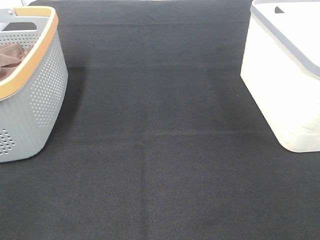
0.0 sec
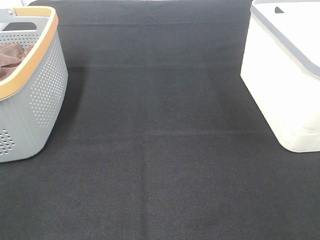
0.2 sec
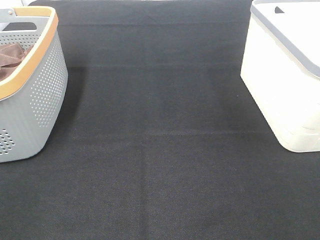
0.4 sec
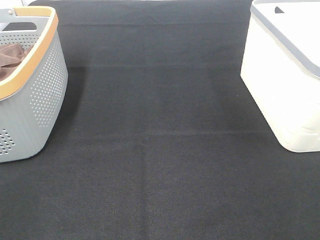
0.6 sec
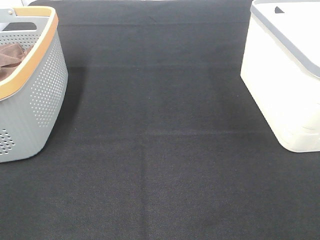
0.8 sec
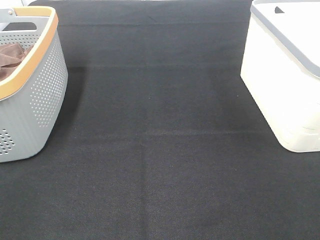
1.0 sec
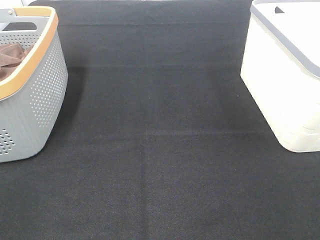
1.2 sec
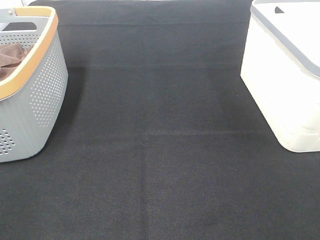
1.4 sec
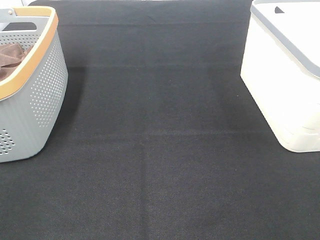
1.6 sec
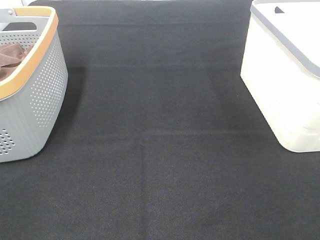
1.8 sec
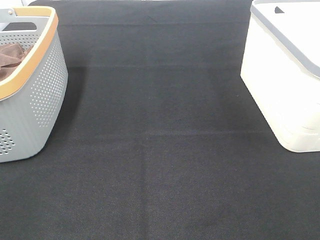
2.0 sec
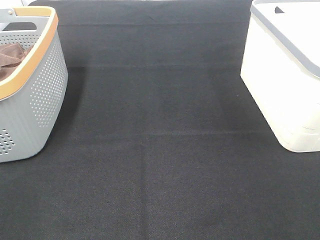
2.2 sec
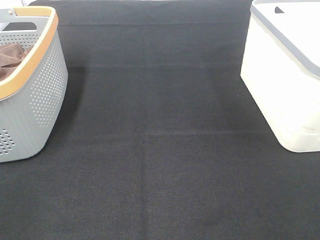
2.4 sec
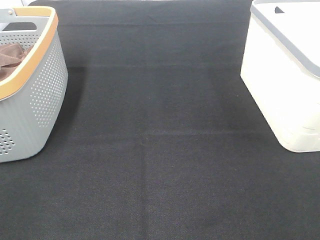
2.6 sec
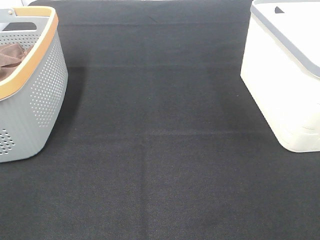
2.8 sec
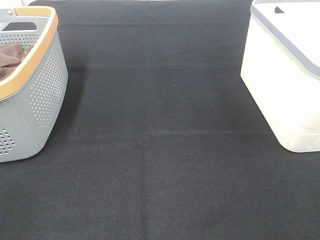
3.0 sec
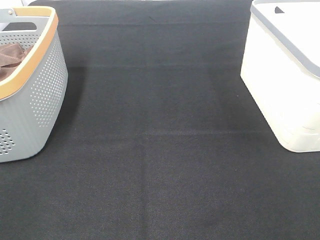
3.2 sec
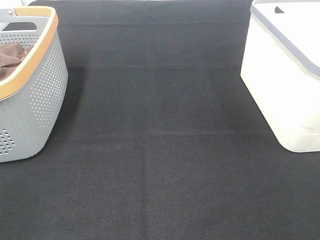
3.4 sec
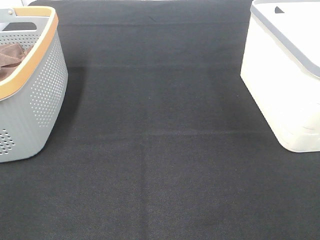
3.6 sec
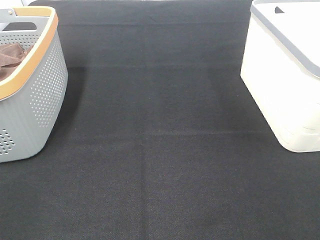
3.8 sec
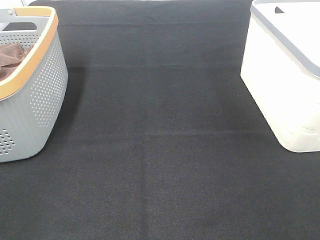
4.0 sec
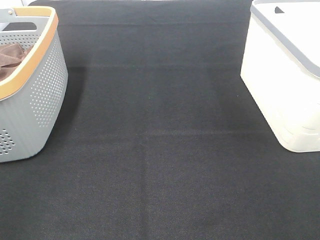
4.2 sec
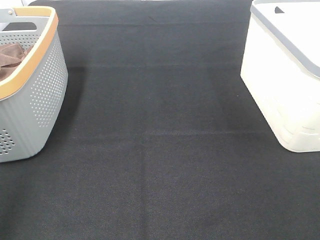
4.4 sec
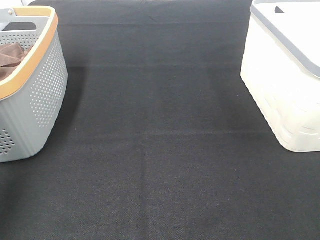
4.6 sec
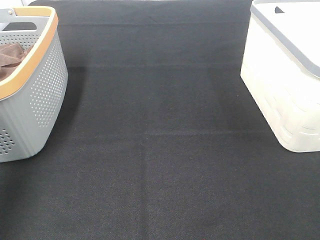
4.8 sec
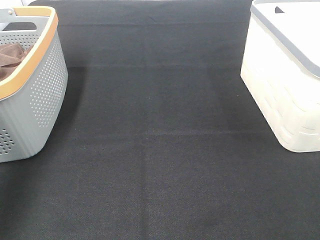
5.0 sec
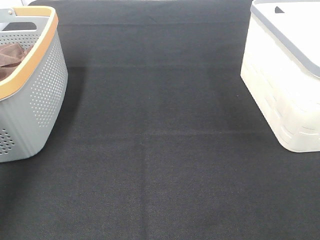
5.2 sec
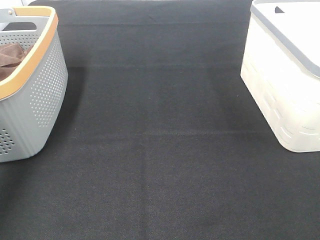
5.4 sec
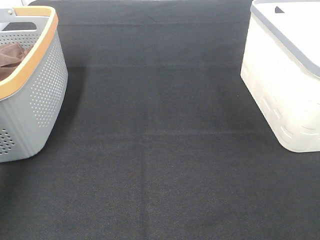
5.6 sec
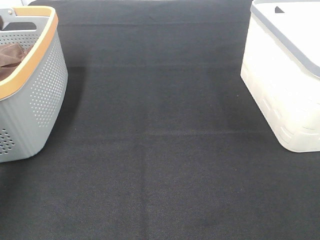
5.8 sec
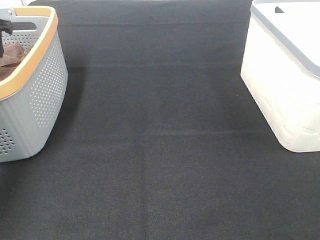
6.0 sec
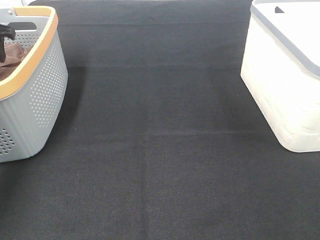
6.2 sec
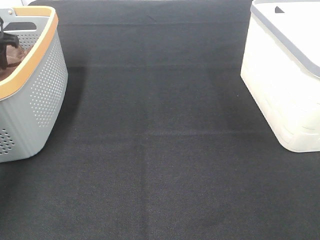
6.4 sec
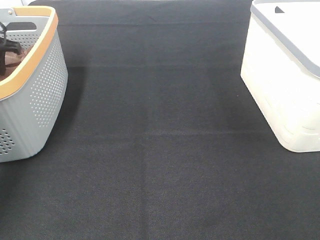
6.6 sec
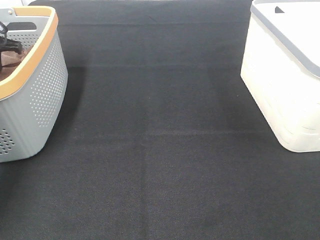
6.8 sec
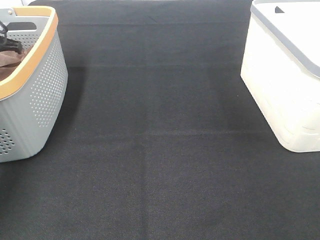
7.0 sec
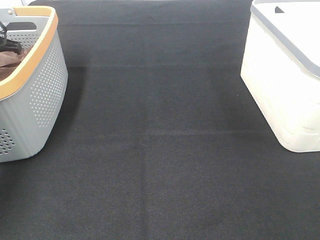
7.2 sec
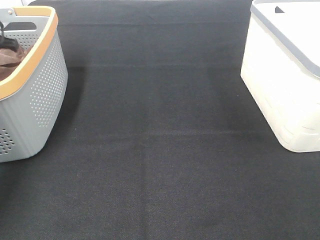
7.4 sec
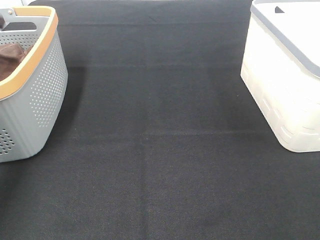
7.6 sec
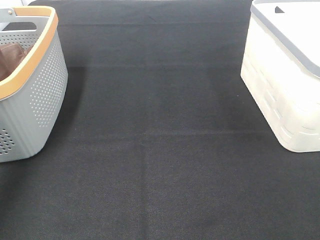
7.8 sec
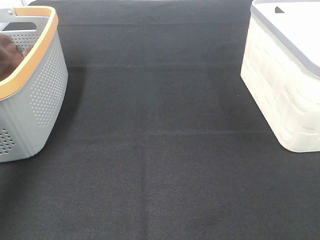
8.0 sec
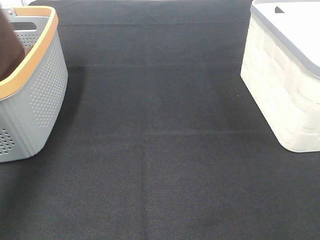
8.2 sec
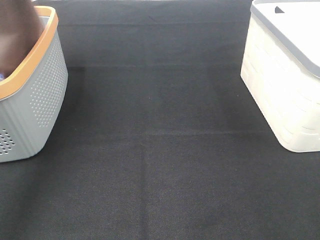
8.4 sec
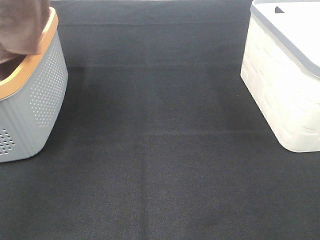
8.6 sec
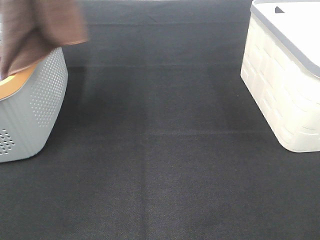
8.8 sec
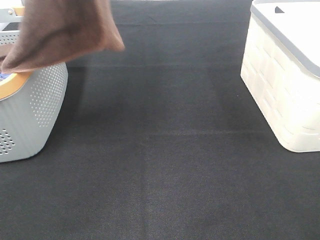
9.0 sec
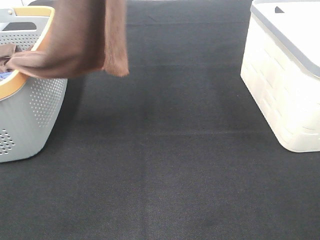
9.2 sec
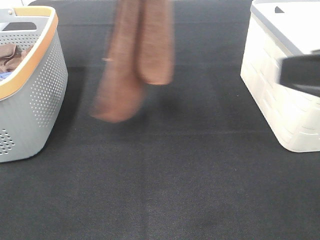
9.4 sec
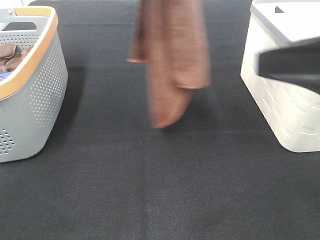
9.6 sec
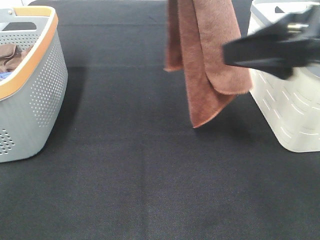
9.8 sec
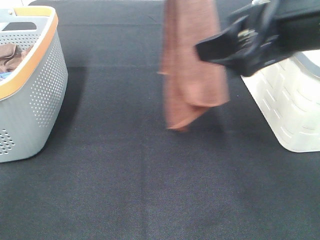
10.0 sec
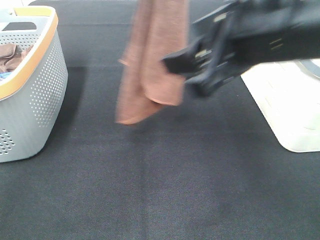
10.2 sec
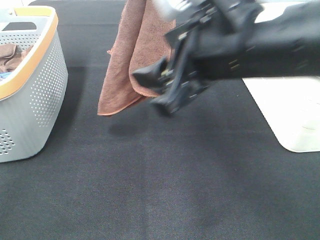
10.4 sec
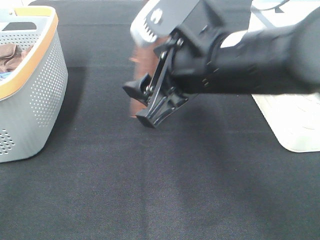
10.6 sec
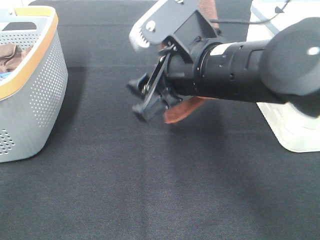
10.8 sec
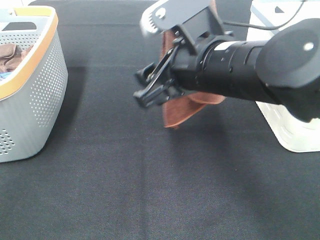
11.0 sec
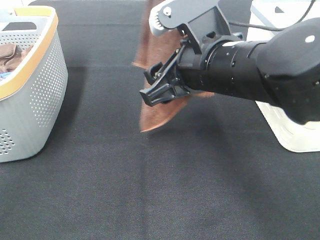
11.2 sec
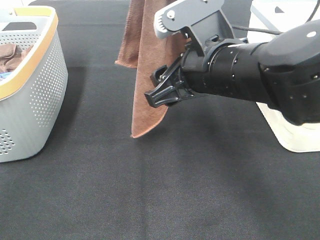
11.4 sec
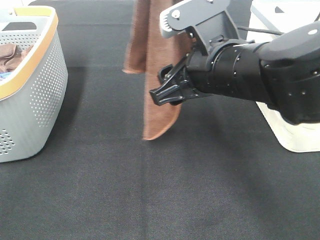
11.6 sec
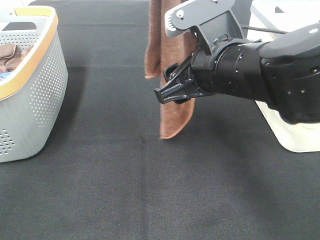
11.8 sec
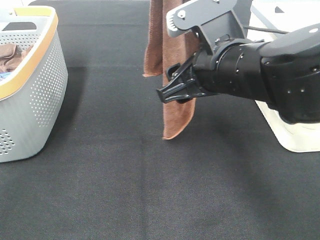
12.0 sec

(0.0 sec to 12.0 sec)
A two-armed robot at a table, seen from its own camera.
Task of the whole recording: Remove the towel and place it.
0.0 sec - 3.0 sec: Both grippers stay put.
3.0 sec - 4.4 sec: The left gripper is displaced forward and upward by roughly 15 cm.
4.4 sec - 6.0 sec: The left gripper goes roughly 35 cm forward.
7.6 sec - 9.0 sec: The left gripper moves upward, to the right and backward, about 35 cm. The right gripper ends up roughly 5 cm from where it was.
9.0 sec - 10.4 sec: The left gripper moves to the right and downward, about 10 cm, while the right gripper travels to the left and forward by some 25 cm.
10.4 sec - 12.0 sec: The right gripper ends up roughly 5 cm from where it was.

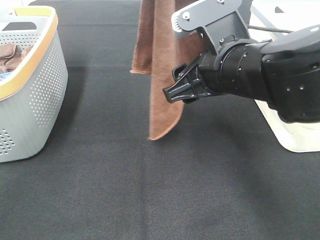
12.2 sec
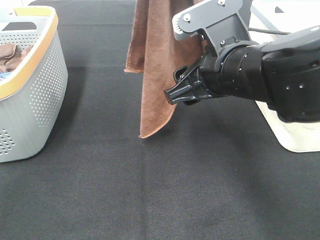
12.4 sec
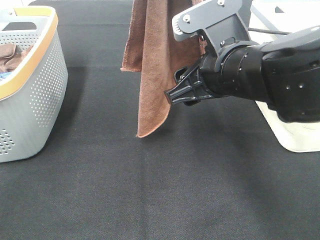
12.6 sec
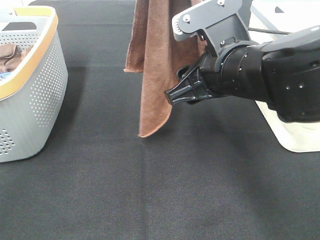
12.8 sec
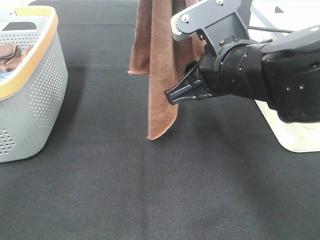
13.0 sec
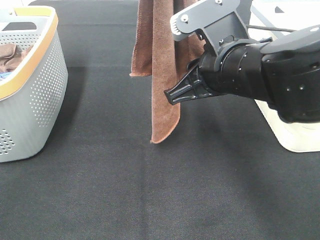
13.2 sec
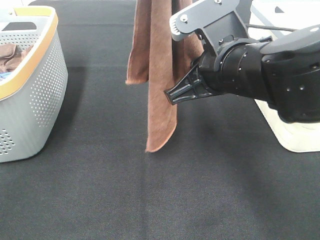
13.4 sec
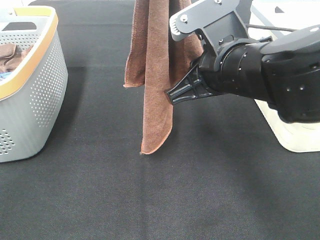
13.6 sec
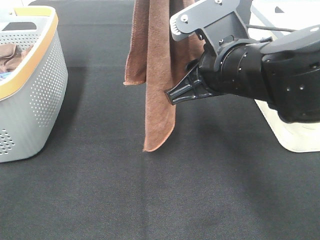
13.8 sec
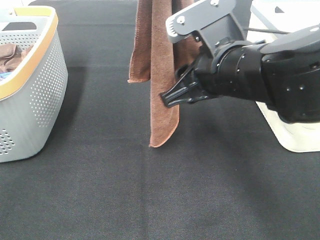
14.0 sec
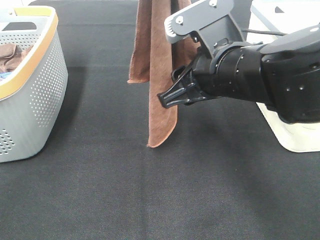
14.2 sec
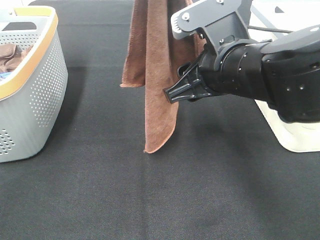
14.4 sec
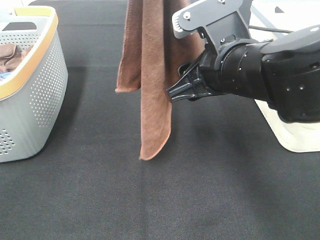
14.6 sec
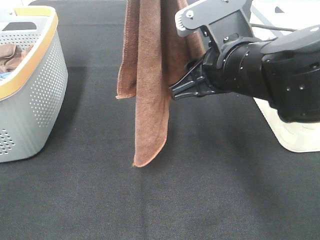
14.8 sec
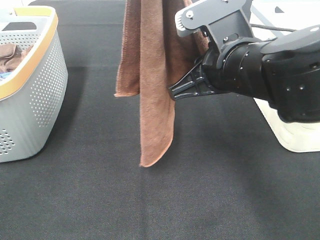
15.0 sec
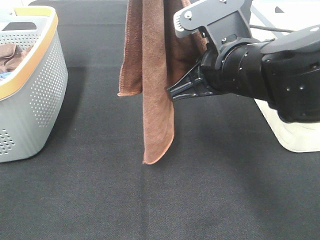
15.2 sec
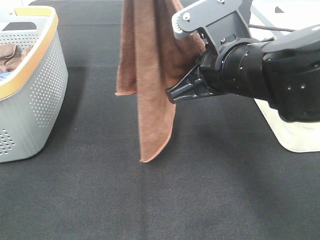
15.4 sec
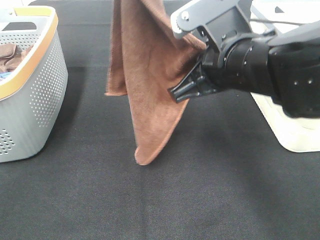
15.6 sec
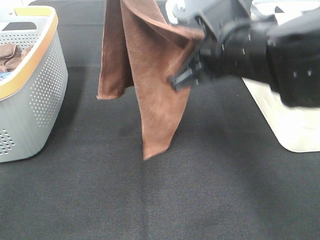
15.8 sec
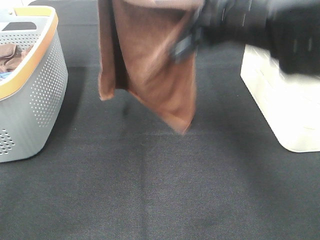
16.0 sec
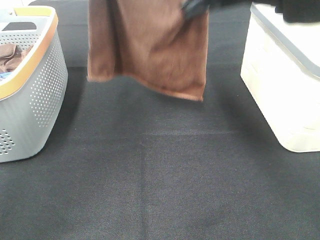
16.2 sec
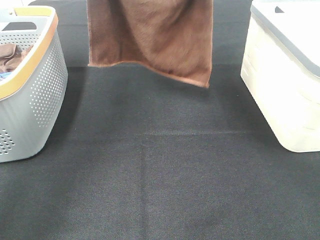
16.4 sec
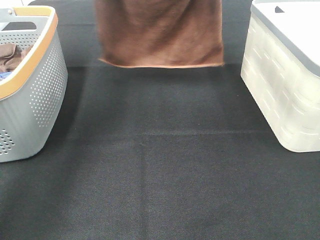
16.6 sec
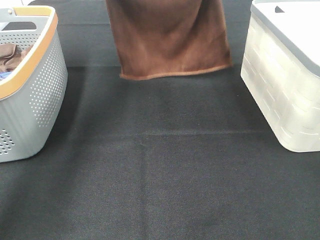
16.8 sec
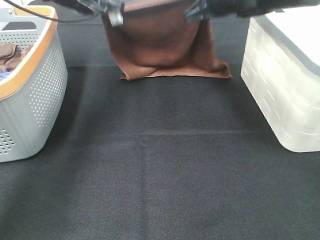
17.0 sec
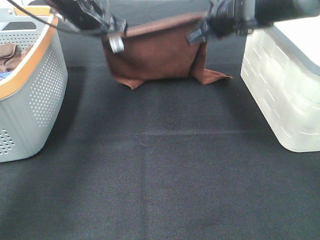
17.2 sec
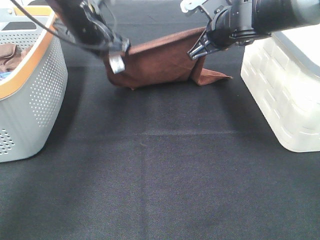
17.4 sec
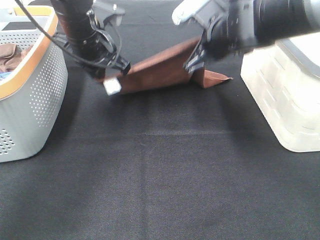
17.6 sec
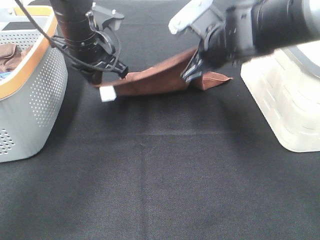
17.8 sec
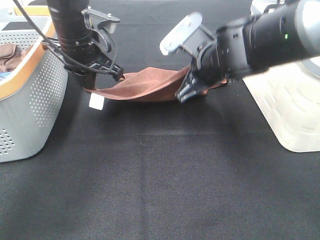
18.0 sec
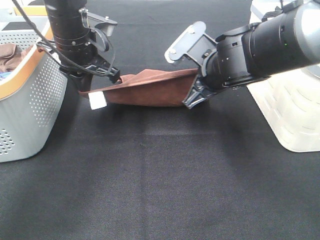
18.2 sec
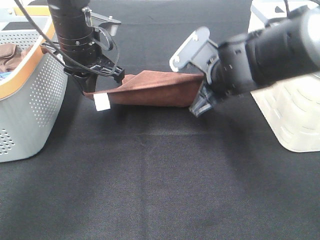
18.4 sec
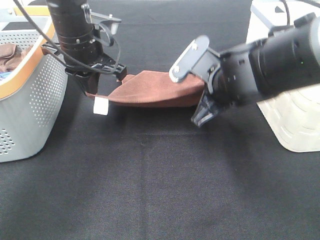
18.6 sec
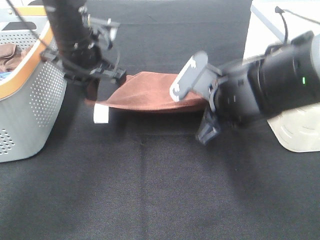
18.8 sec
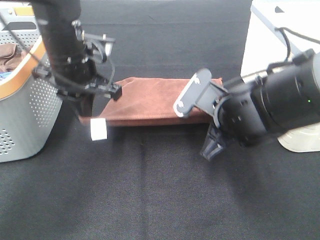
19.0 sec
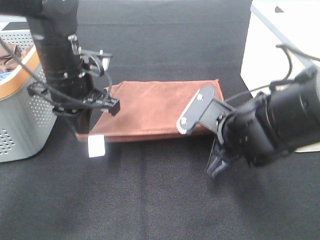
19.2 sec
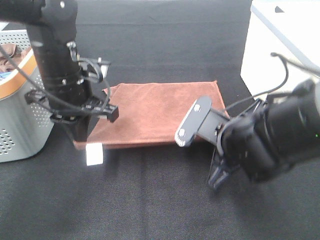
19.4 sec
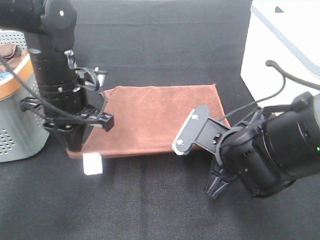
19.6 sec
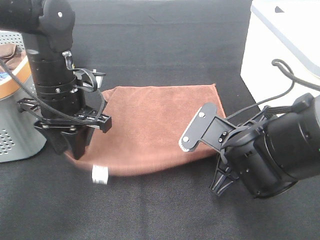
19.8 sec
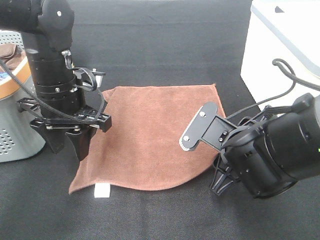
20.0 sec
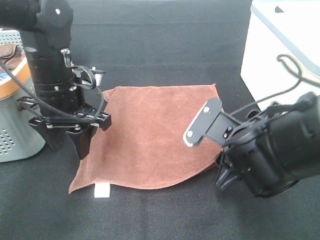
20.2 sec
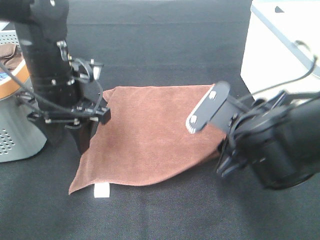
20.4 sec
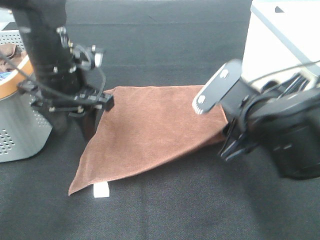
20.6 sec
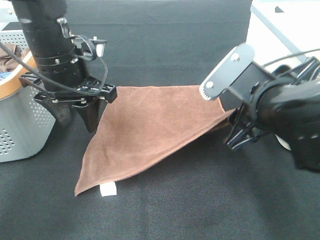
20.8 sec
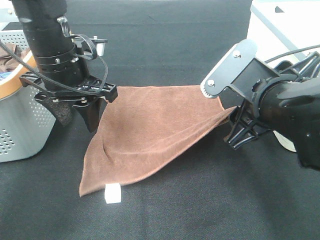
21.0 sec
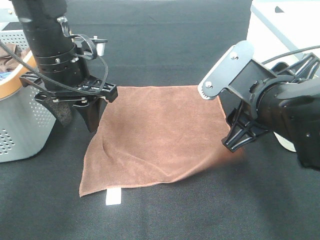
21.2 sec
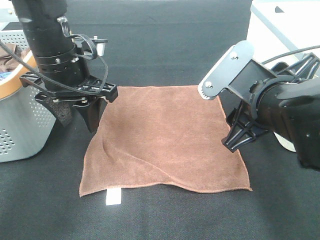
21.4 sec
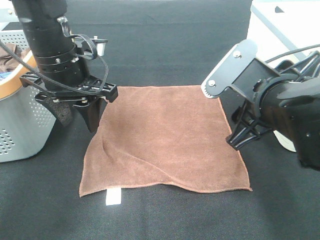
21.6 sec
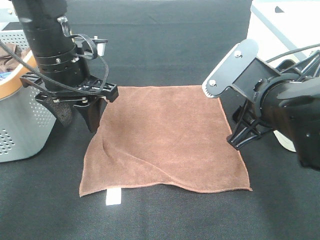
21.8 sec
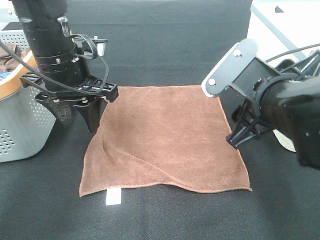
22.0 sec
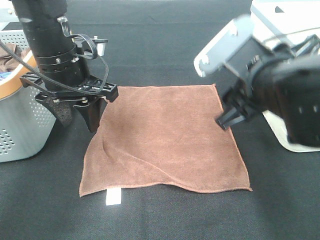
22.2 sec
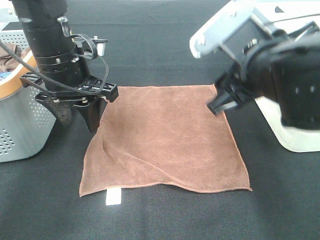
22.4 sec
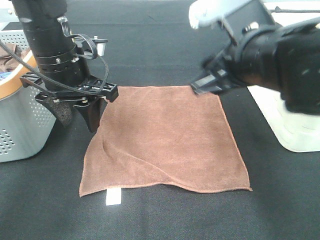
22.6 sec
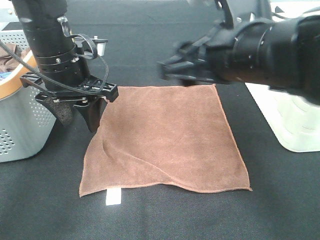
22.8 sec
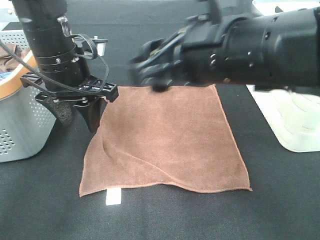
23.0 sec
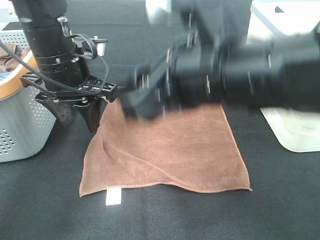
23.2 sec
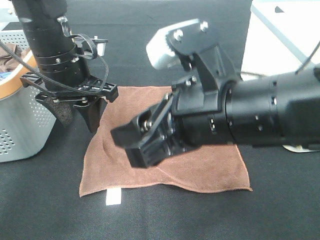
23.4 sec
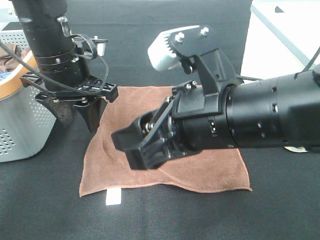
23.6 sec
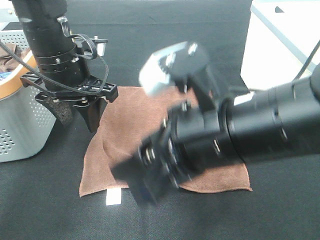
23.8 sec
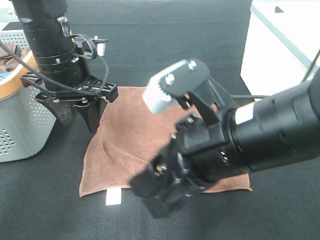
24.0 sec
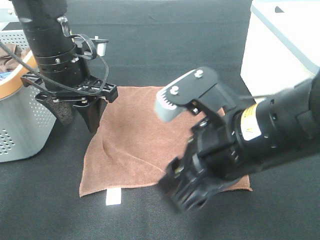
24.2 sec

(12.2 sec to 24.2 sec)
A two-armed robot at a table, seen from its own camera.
Task of the whole recording: Remove the towel and place it.
Step, 13.4 sec - 16.0 sec: Left hand: spread the brown towel flat on the table.
Step, 13.4 sec - 17.0 sec: Right hand: spread the brown towel flat on the table.
12.2 sec - 13.8 sec: The right gripper closes up.
13.8 sec - 15.2 sec: The right gripper closes.
15.2 sec - 16.6 sec: The right gripper is displaced forward and upward by some 20 cm, while the left gripper heads forward and downward, covering some 25 cm.
16.6 sec - 18.2 sec: Both grippers travel together downward and backward, about 15 cm.
18.2 sec - 19.8 sec: The right gripper goes approximately 15 cm backward and downward, and opens. Meanwhile the left gripper travels backward by roughly 10 cm, and opens up.
19.8 sec - 21.2 sec: The right gripper moves upward, roughly 10 cm.
21.2 sec - 22.6 sec: The right gripper travels upward by approximately 5 cm.
22.6 sec - 24.2 sec: The right gripper shifts about 5 cm backward.
